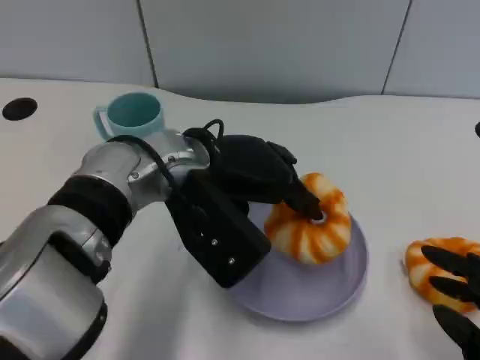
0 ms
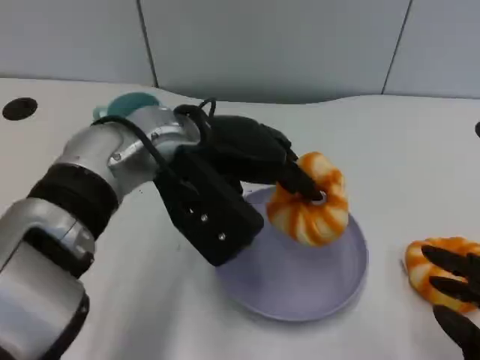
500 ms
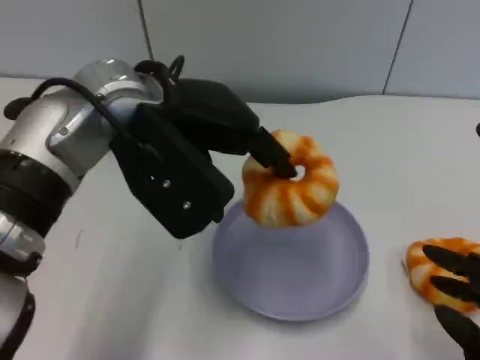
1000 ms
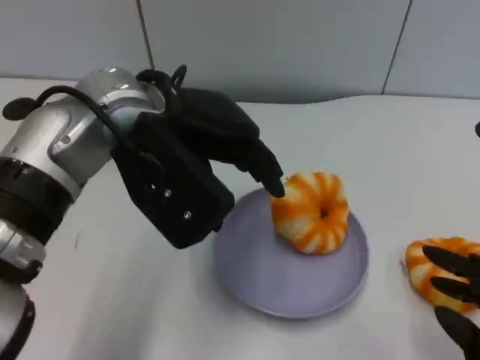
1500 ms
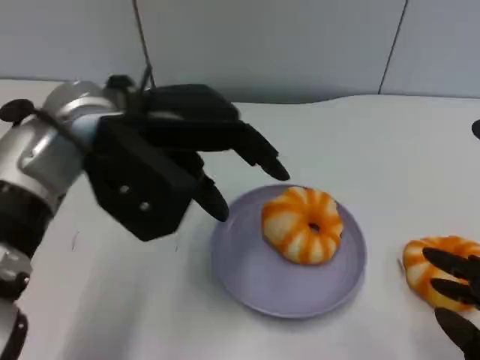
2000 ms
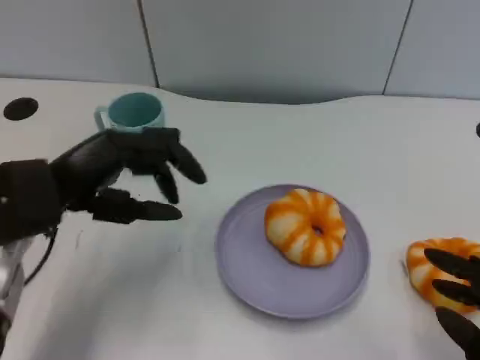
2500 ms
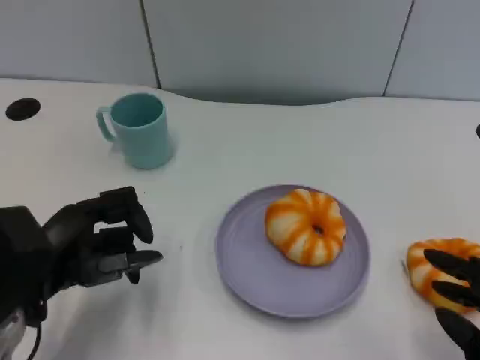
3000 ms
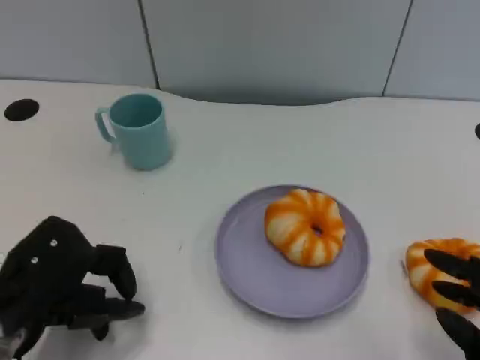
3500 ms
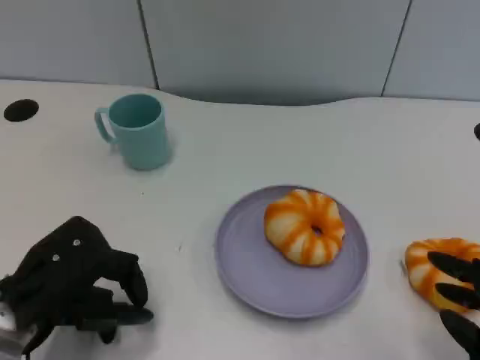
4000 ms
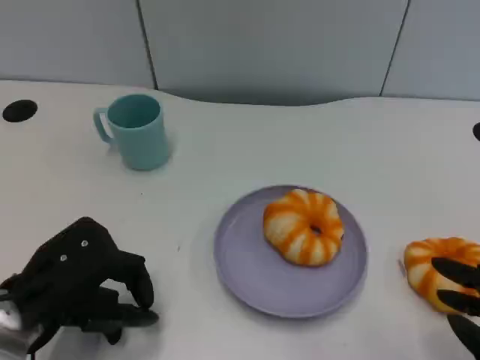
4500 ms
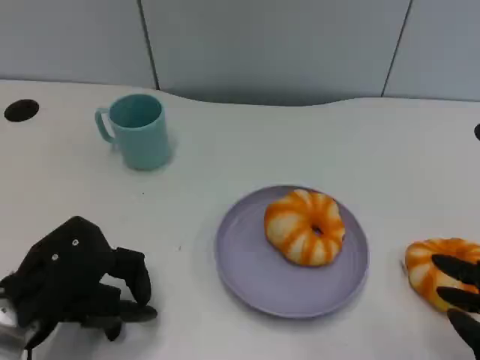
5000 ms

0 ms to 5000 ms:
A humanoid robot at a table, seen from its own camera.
Task of the whole recording: Grasp the bread from the table and place it into the plate.
0 ms to 2500 ms: The left hand moves to the left, approximately 15 cm.
2500 ms to 5000 ms: The left hand heads downward and backward, covering roughly 10 cm.

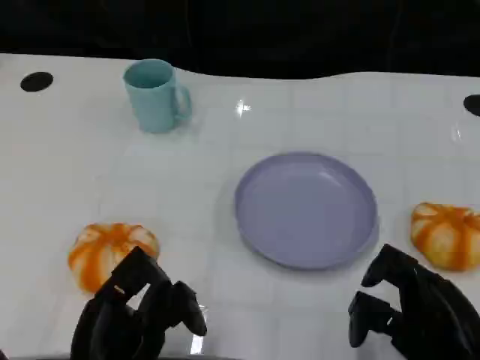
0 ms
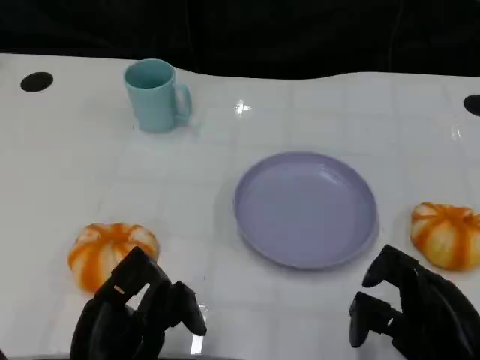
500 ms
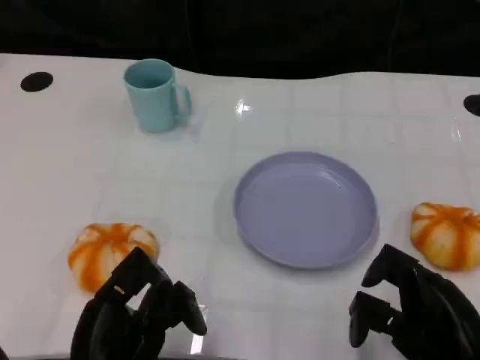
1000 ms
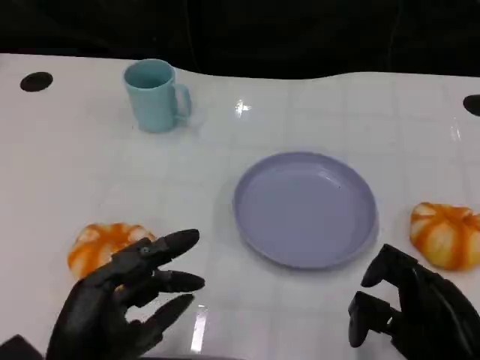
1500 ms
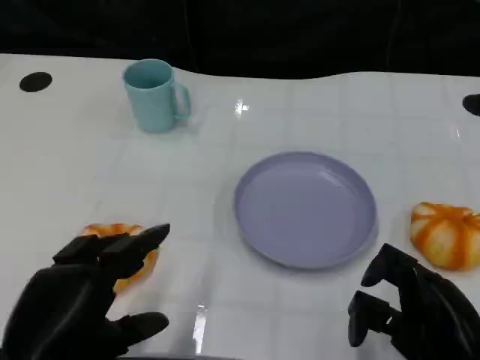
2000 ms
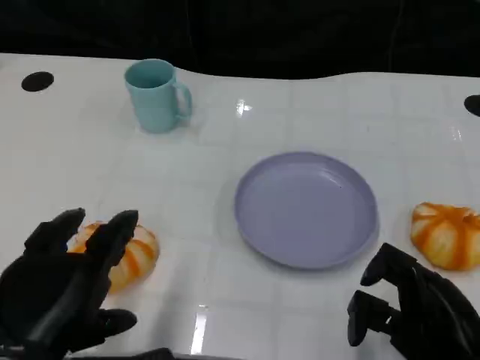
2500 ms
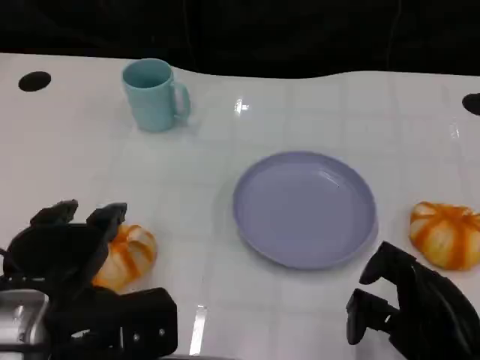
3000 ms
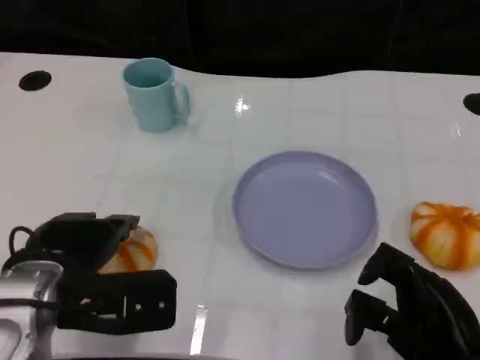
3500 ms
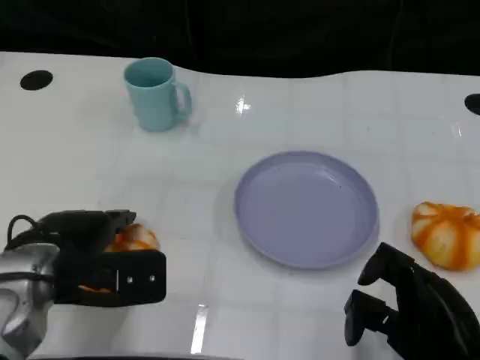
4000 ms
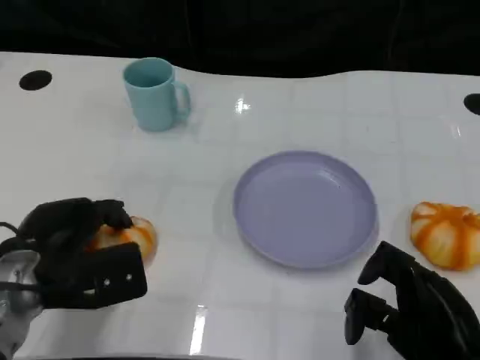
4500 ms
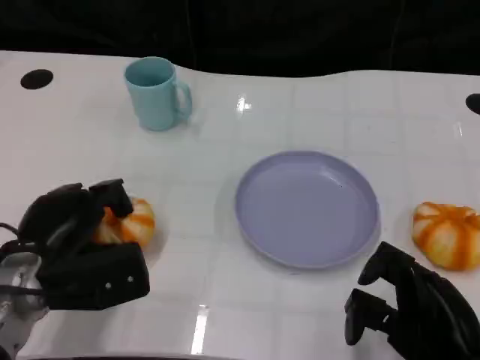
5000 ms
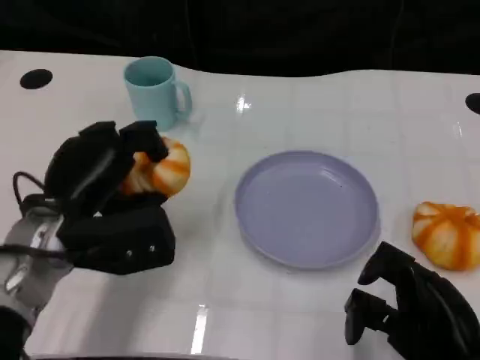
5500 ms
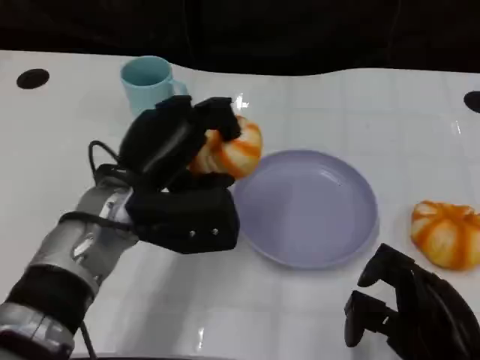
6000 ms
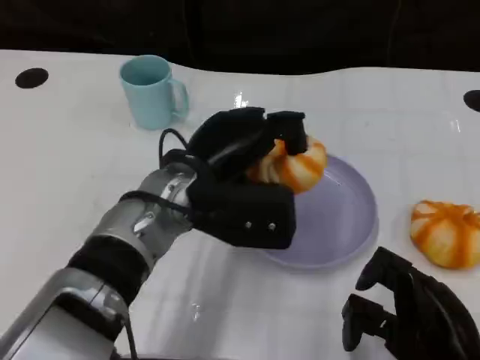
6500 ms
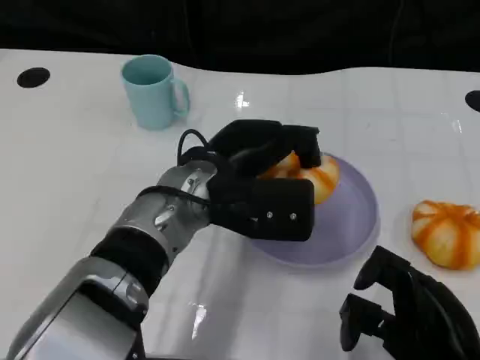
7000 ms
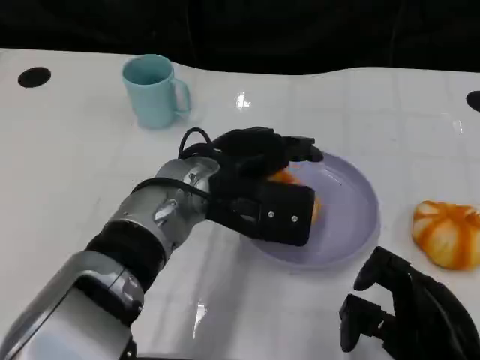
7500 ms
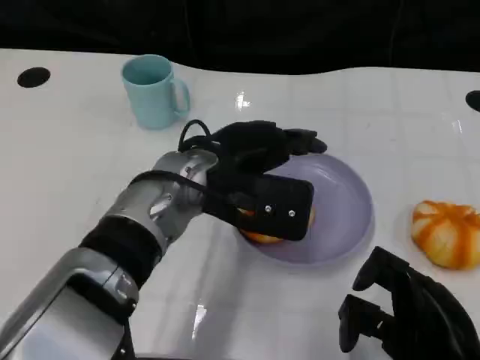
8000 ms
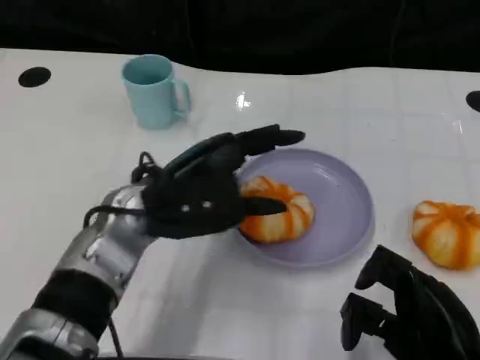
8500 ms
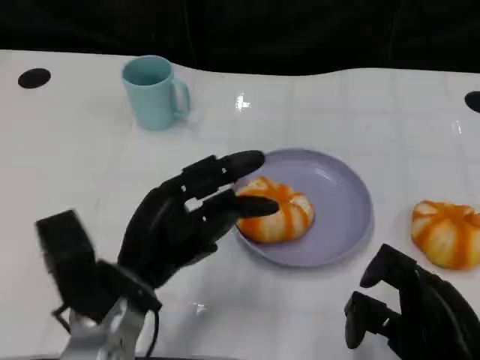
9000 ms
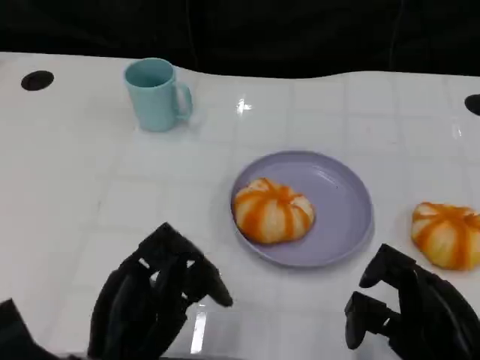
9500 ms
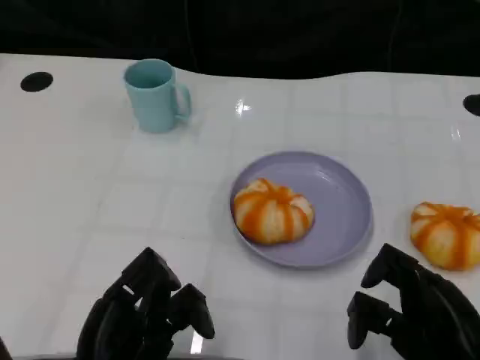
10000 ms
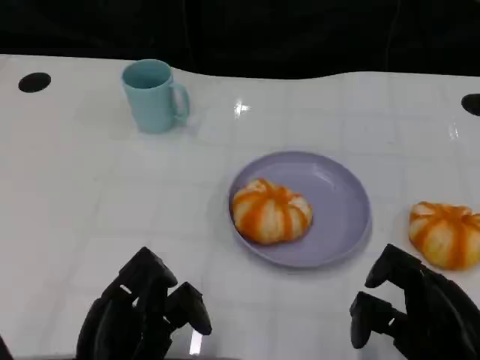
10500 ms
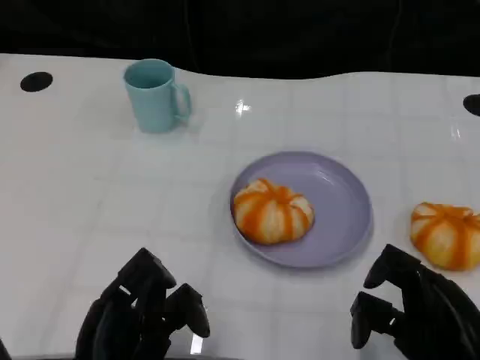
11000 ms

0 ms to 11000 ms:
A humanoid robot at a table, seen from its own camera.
Task of the whole recording: Grasp the bread from the table and place it into the plate.
0 ms to 2000 ms: The left hand goes approximately 5 cm upward.
2000 ms to 3500 ms: The left hand is displaced forward by some 10 cm.
3500 ms to 5500 ms: The left hand goes about 5 cm forward.
5500 ms to 7500 ms: The left hand travels to the right by some 15 cm.
7500 ms to 9000 ms: The left hand travels to the left, backward and downward by approximately 15 cm.
9000 ms to 11000 ms: The left hand is displaced backward by roughly 10 cm.

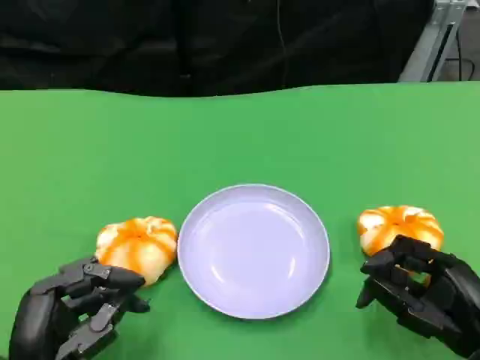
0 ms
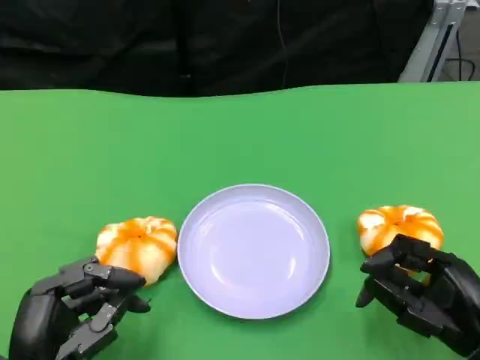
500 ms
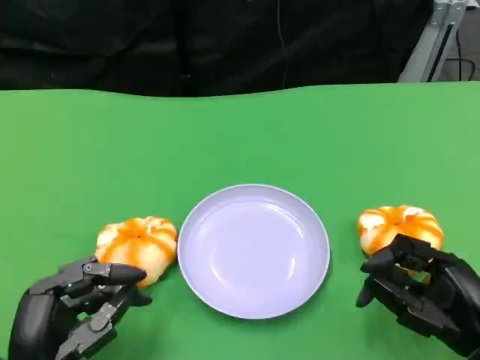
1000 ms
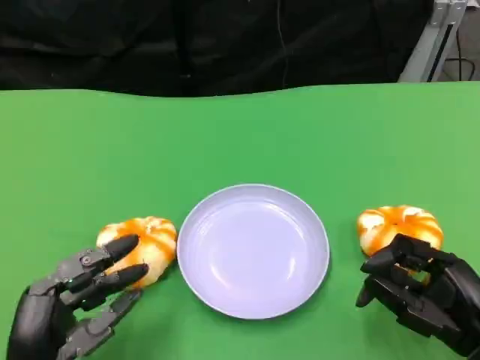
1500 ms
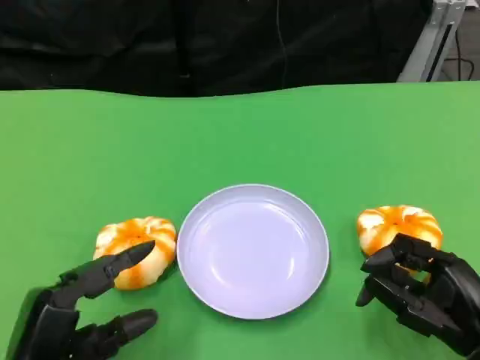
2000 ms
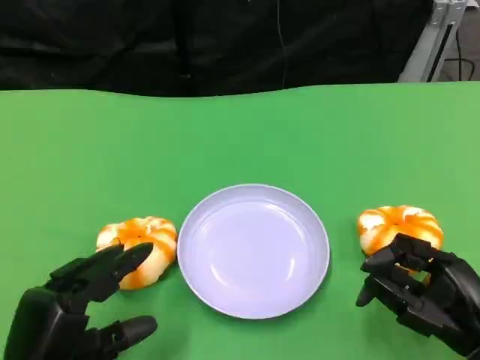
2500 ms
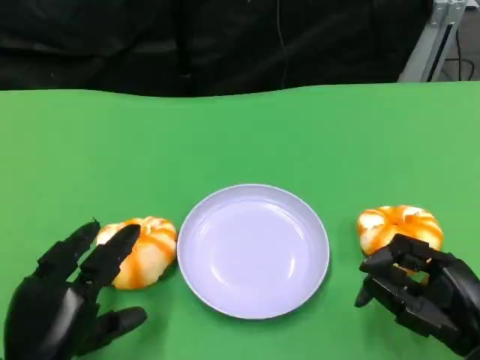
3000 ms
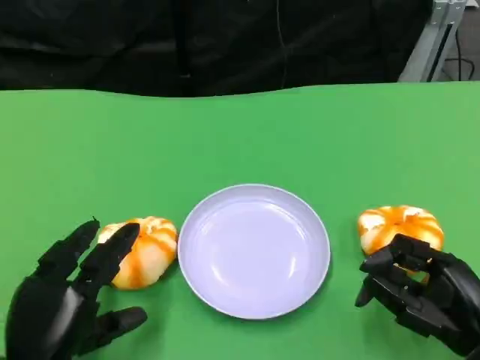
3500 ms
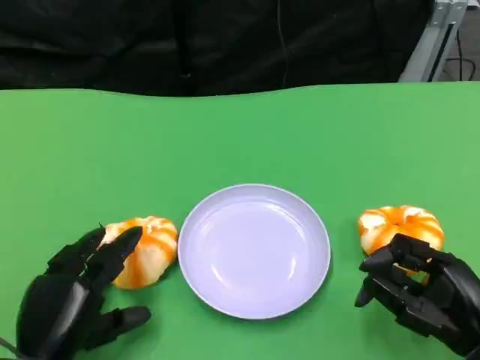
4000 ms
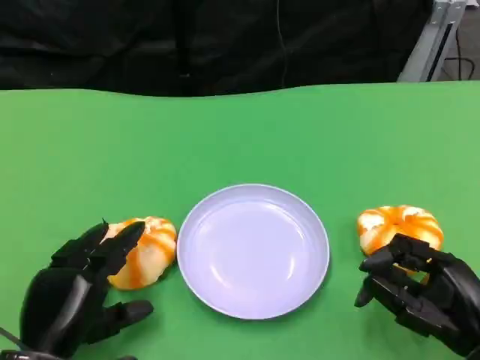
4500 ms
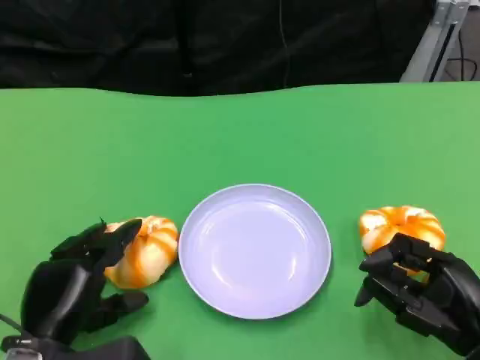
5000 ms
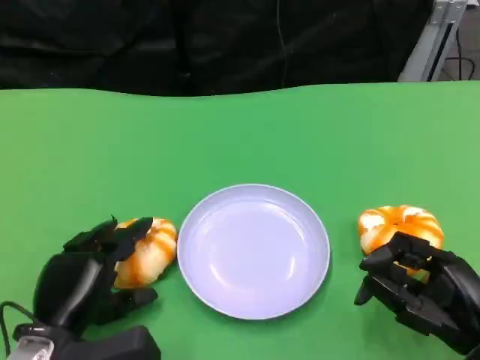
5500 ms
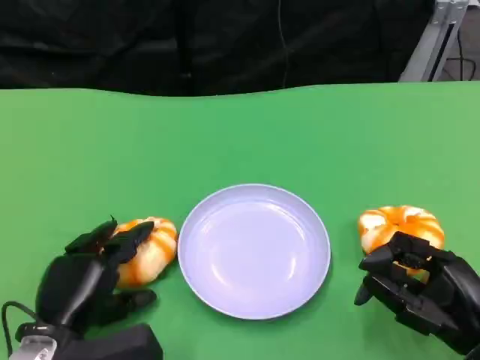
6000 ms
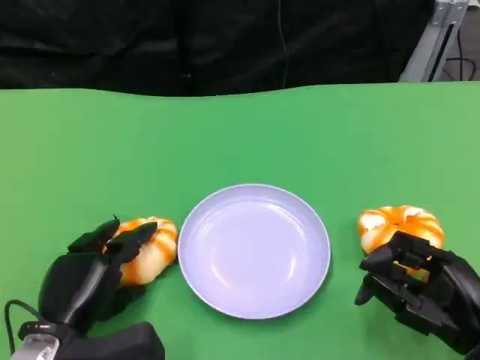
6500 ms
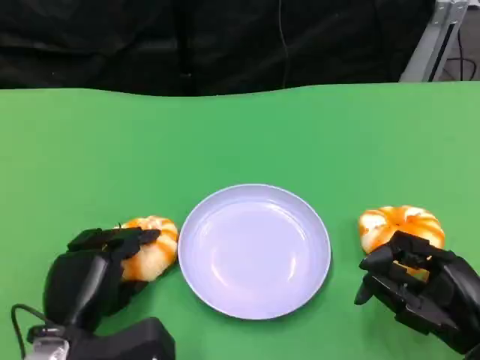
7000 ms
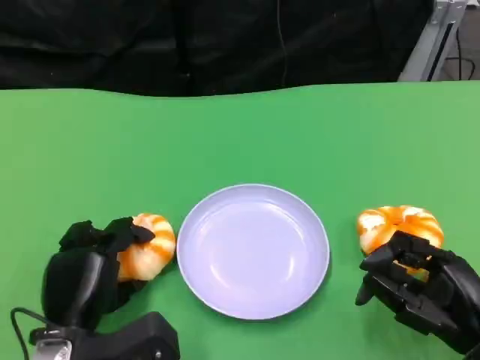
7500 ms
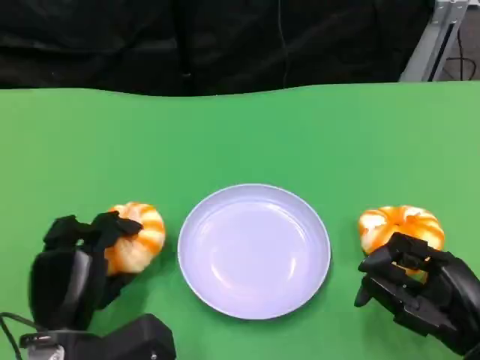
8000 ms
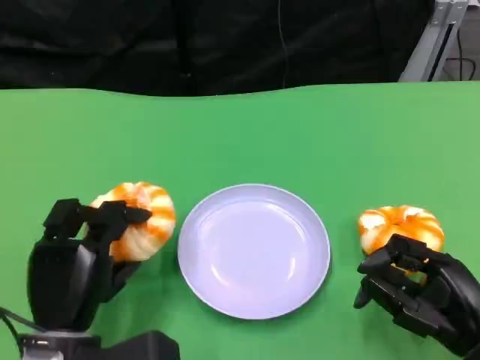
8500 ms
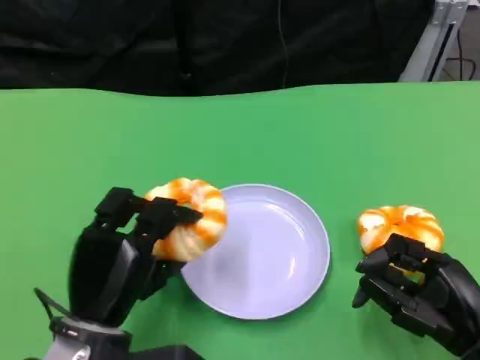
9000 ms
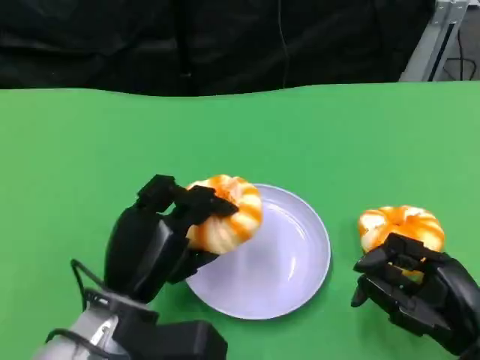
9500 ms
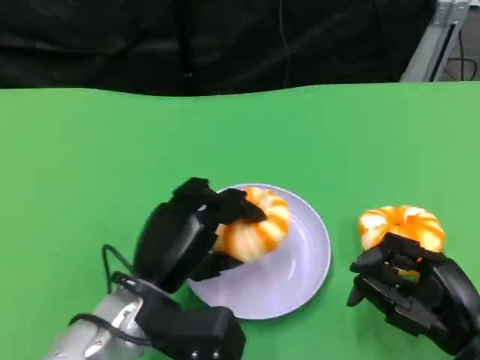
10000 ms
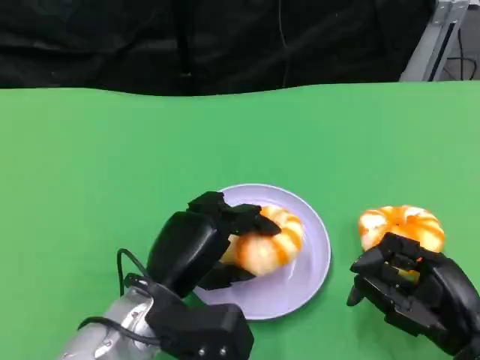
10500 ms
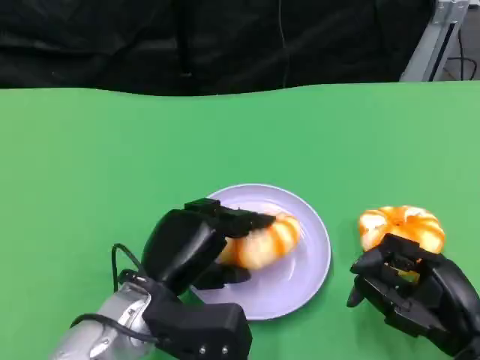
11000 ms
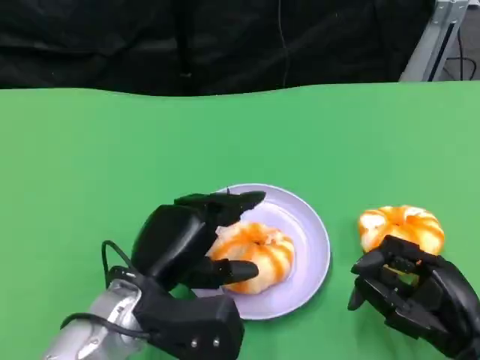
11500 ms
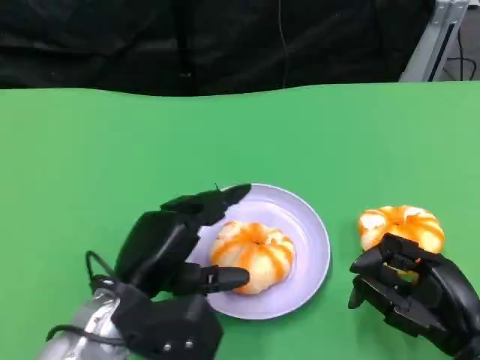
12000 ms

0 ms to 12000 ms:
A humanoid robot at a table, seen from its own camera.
Task of the whole recording: Grasp the bread from the table and place it into the plate.
4000 ms to 8000 ms: The hands stay close to where they were, moving slightly.
8000 ms to 10000 ms: The left hand goes some 5 cm to the right.
10000 ms to 12000 ms: The hands stay close to where they were, moving slightly.
